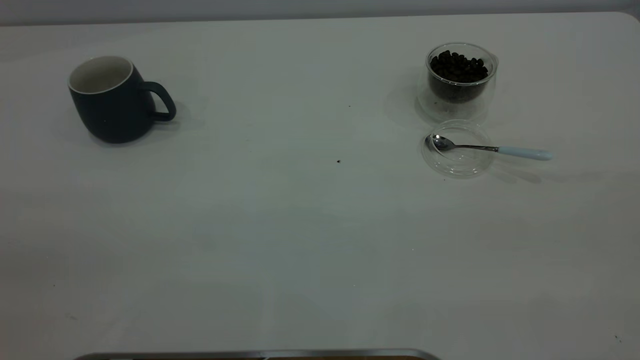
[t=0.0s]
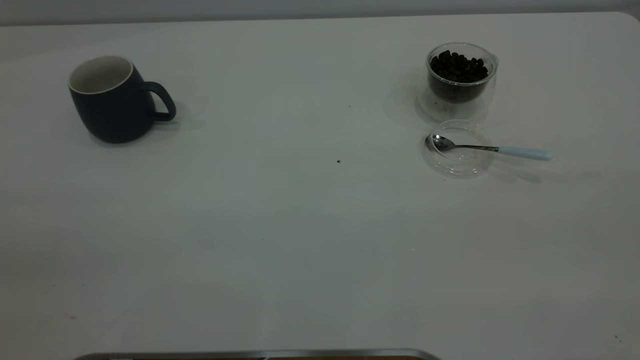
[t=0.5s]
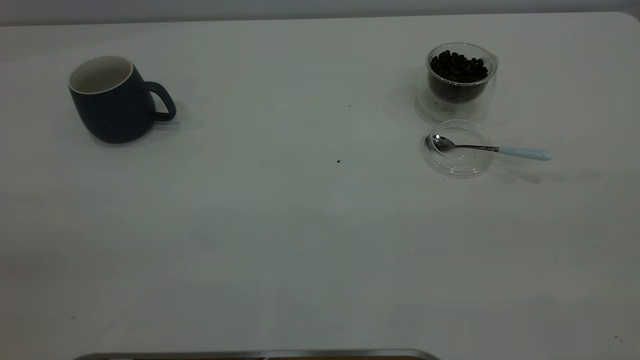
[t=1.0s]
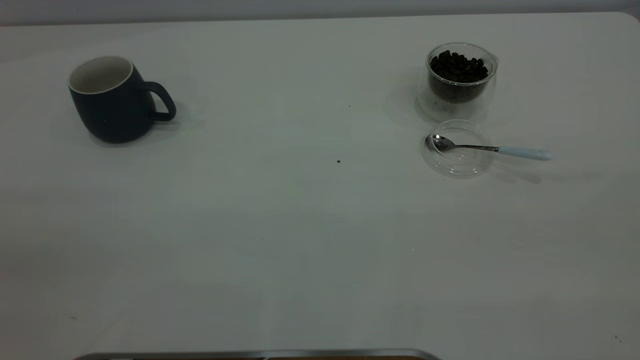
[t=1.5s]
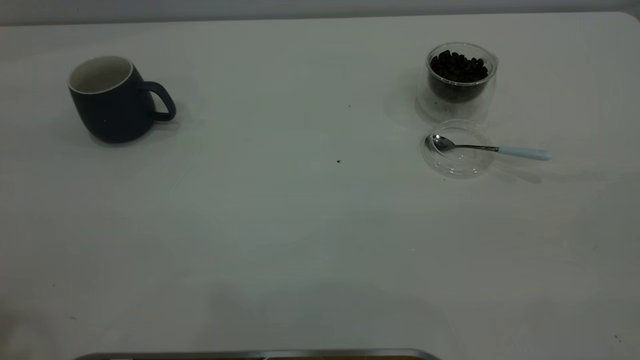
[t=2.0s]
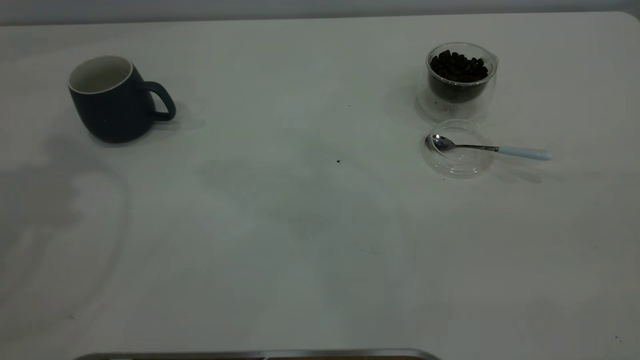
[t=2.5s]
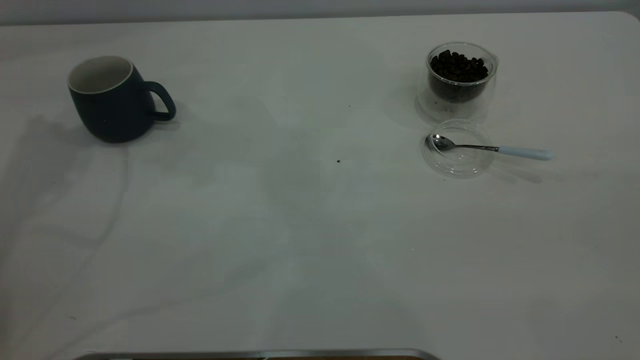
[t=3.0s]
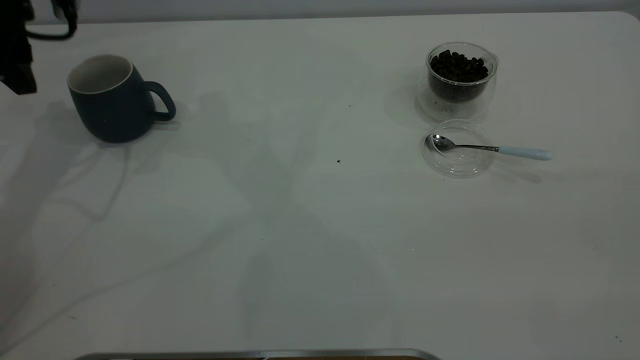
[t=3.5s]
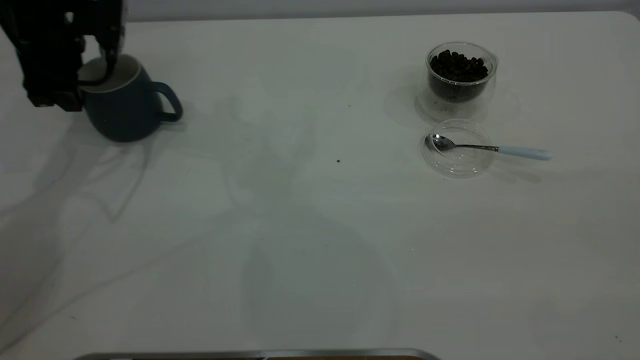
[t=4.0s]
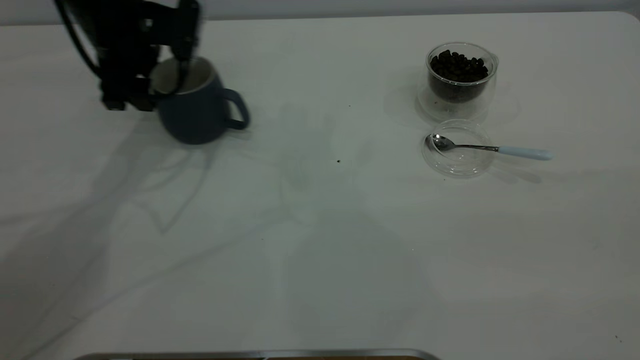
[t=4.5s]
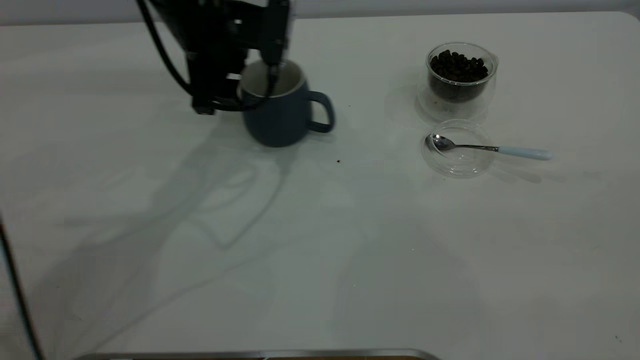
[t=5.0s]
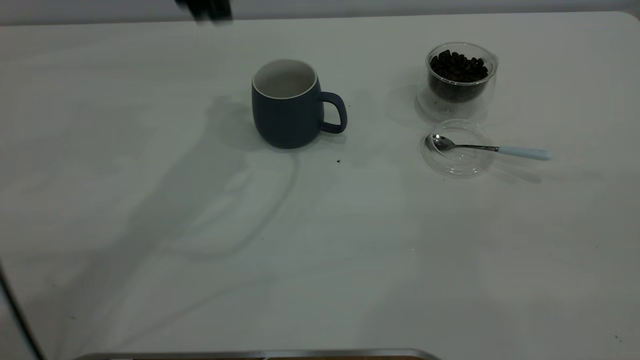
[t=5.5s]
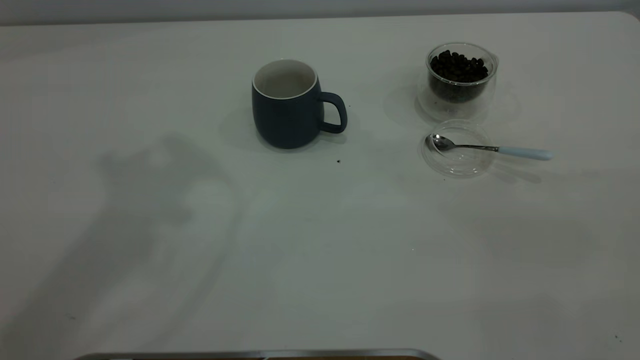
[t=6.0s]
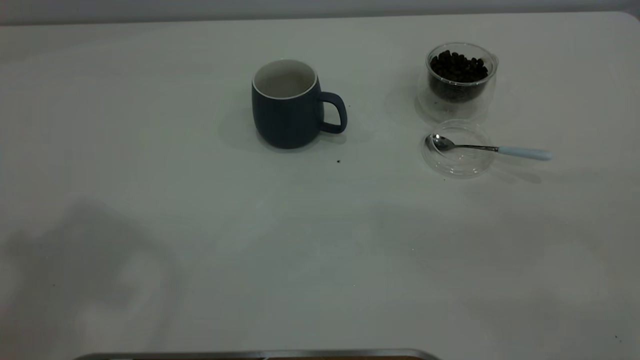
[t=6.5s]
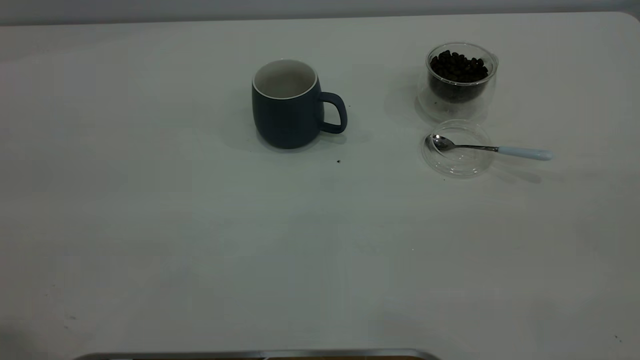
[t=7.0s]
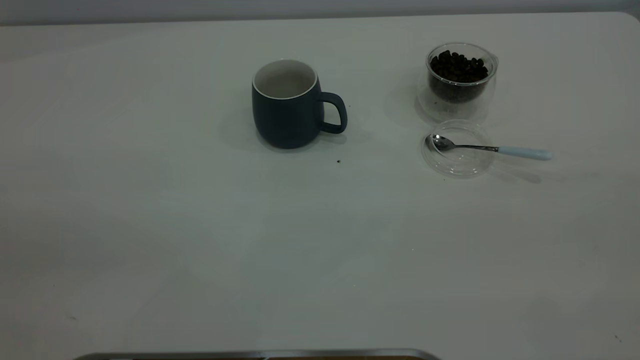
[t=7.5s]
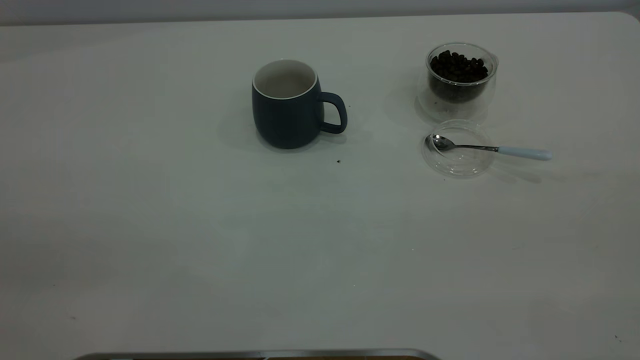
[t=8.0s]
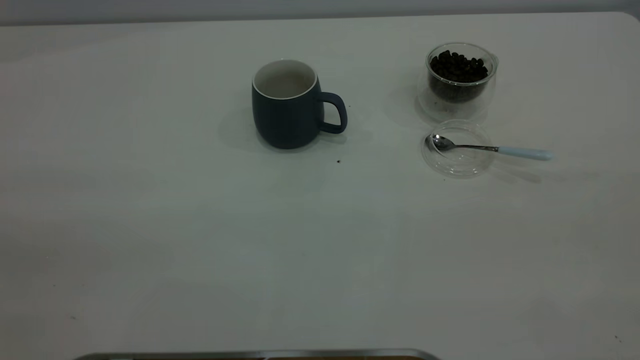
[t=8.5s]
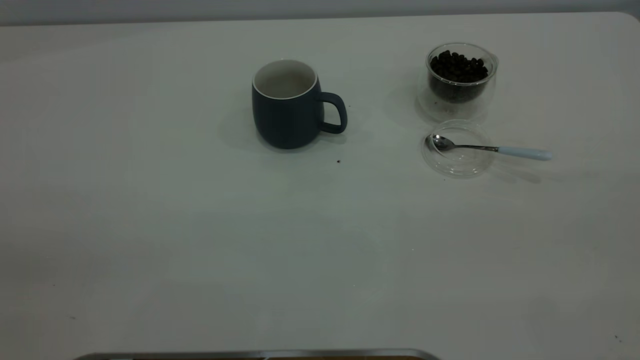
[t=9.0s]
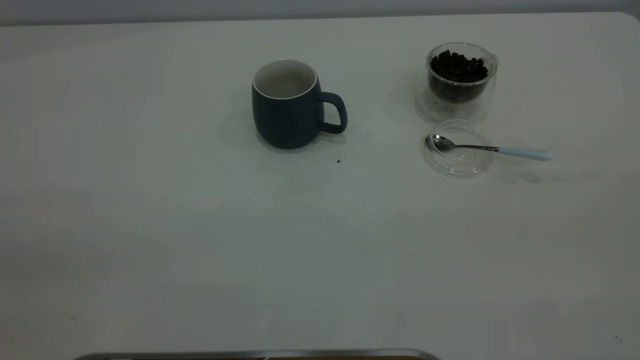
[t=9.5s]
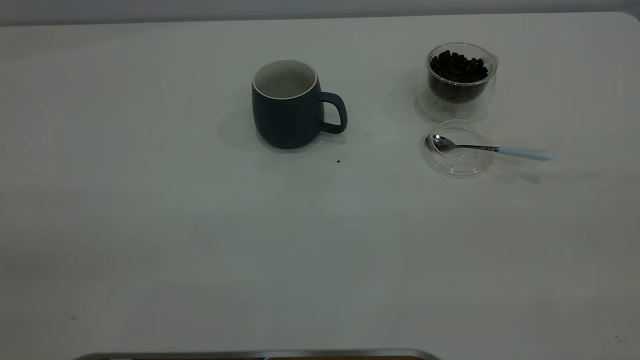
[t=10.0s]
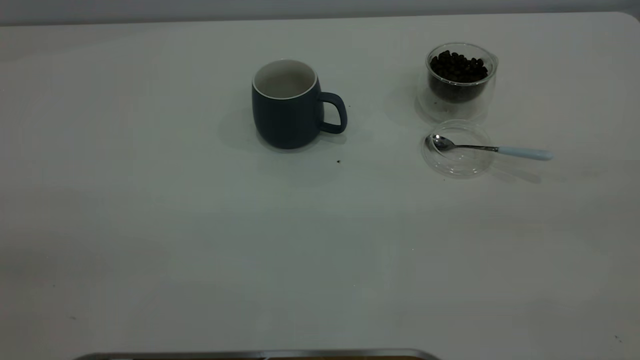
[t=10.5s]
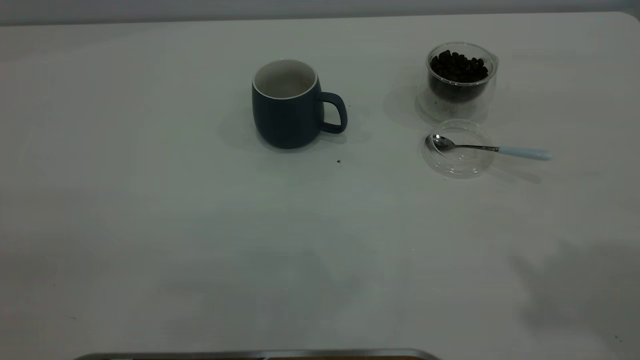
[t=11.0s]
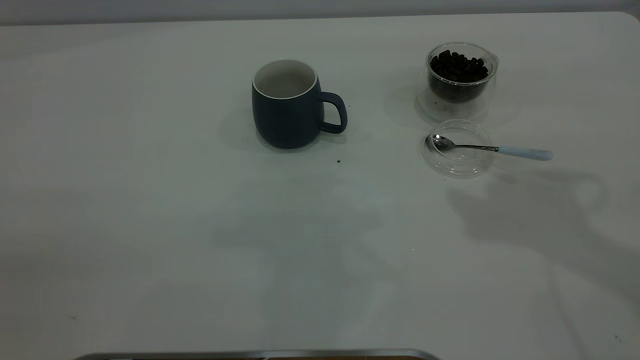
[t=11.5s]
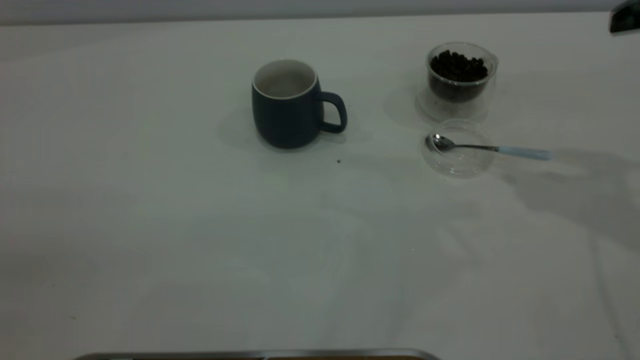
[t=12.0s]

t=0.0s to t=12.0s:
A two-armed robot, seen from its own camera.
Task of the whole recording: the left gripper place the grey cup in the center of the table, the right gripper take the blue spoon from the cup lid and scoop out the coffee beans from the coffee cup and put them into the grey cup, the right gripper put the spoon back into the cup lid.
Step, t=0.0s to t=5.0s: Move the cup to the center of view.
t=2.0s to t=4.0s: The left gripper travels forward and downward by about 40 cm.
t=4.0s to t=6.0s: The left gripper shifts approximately 35 cm upward and backward.

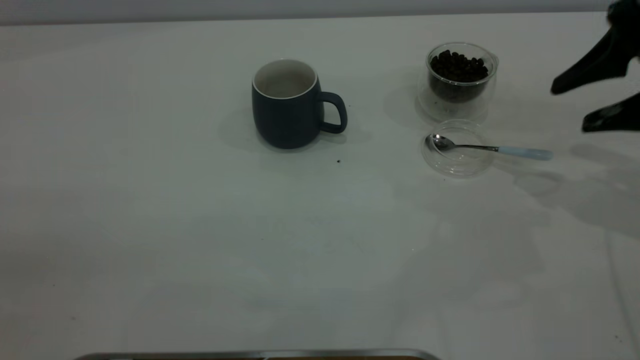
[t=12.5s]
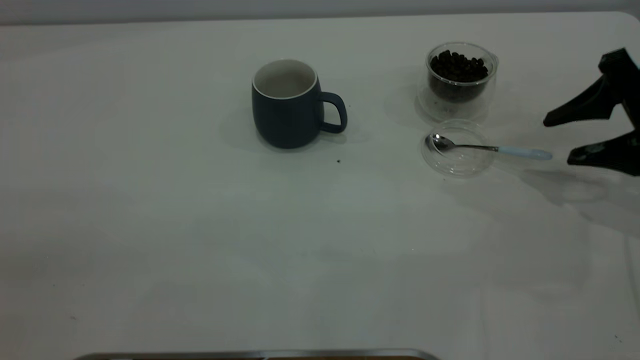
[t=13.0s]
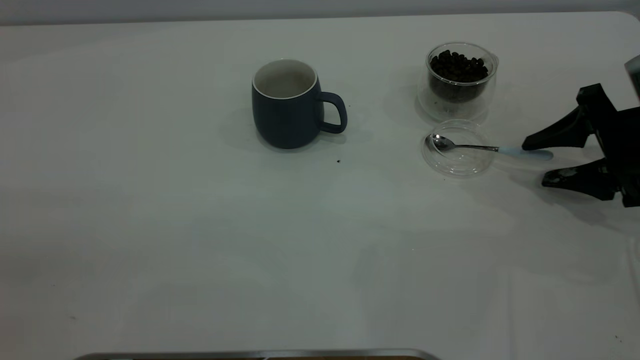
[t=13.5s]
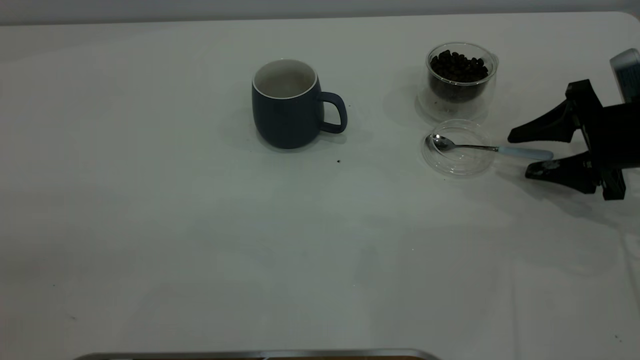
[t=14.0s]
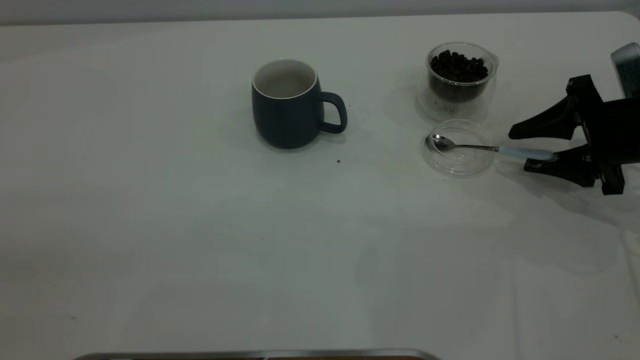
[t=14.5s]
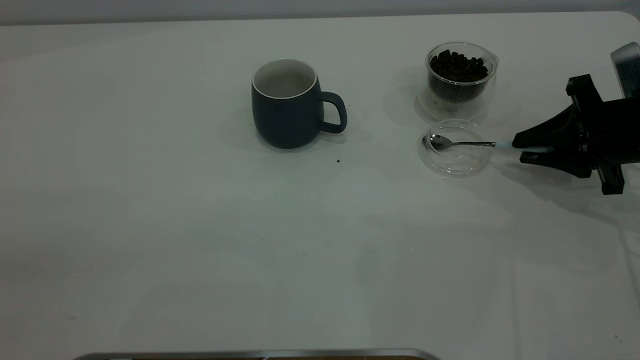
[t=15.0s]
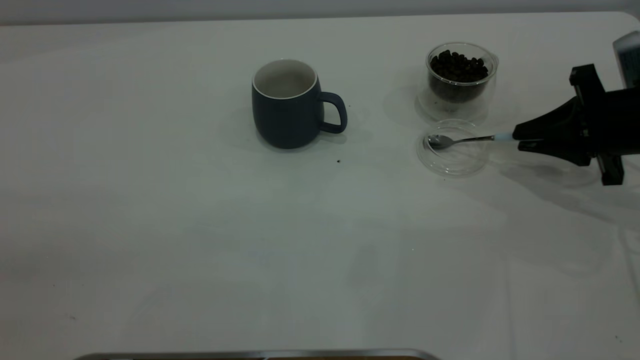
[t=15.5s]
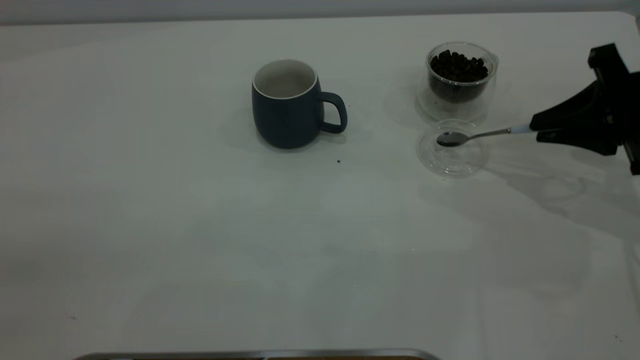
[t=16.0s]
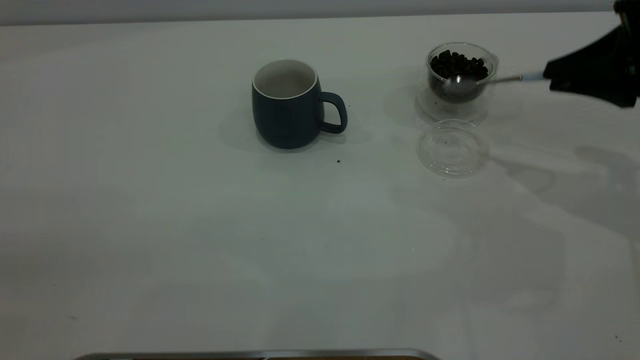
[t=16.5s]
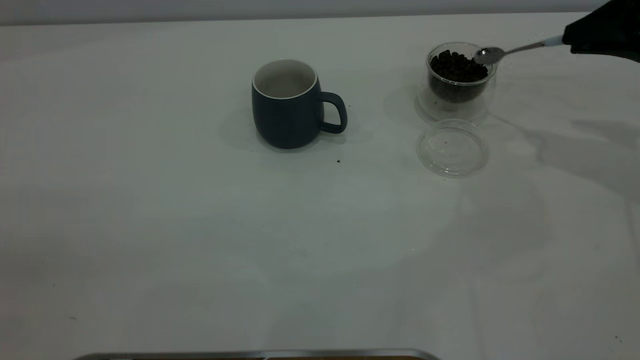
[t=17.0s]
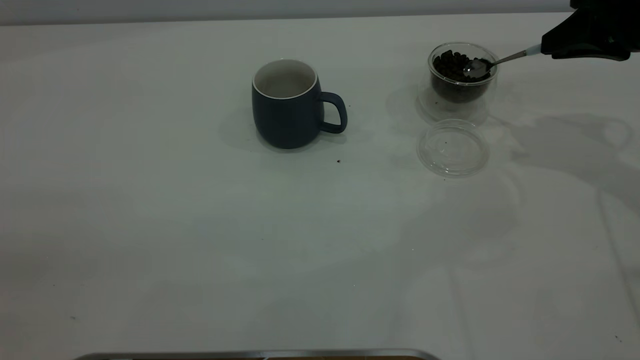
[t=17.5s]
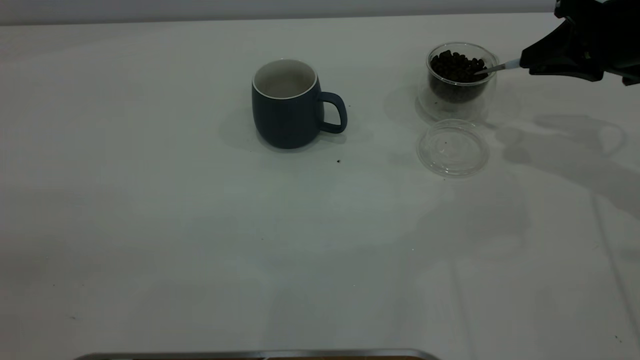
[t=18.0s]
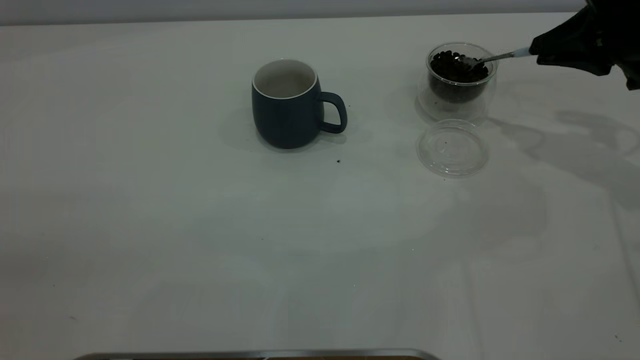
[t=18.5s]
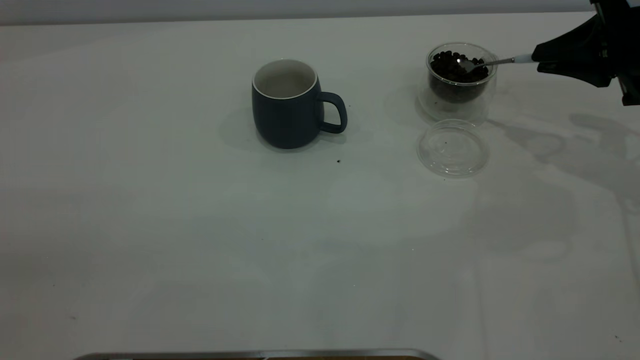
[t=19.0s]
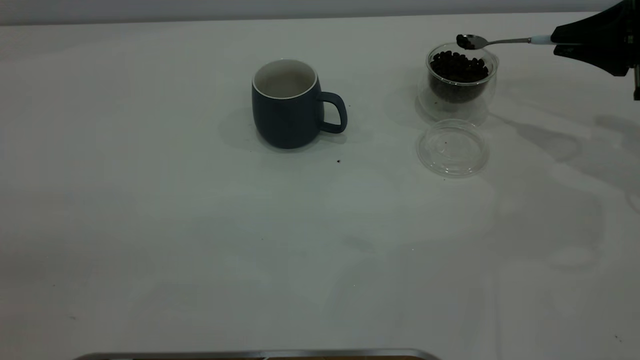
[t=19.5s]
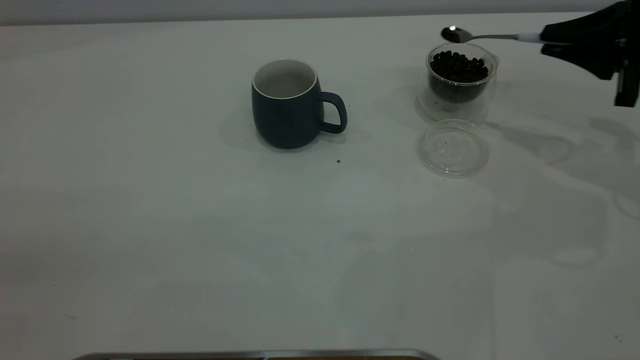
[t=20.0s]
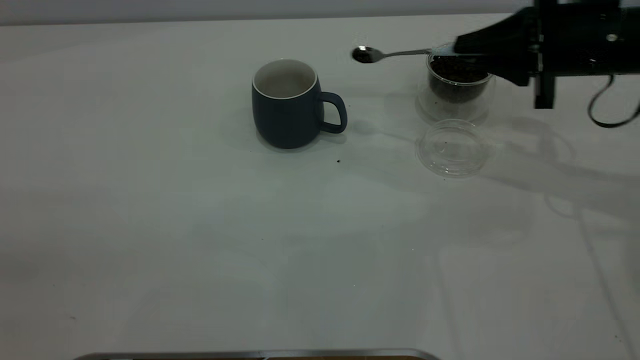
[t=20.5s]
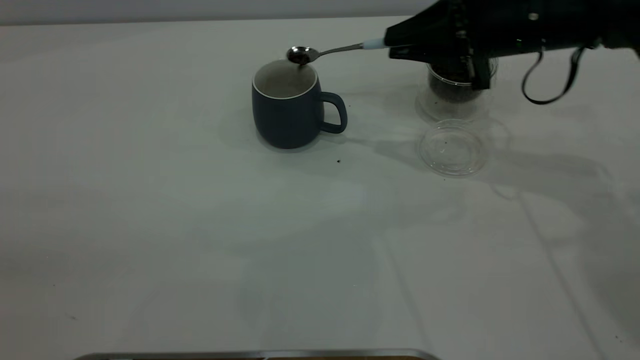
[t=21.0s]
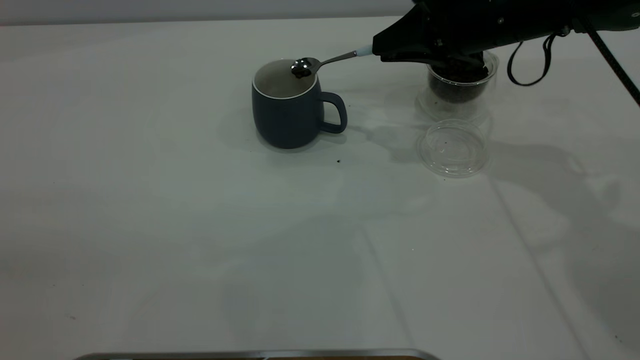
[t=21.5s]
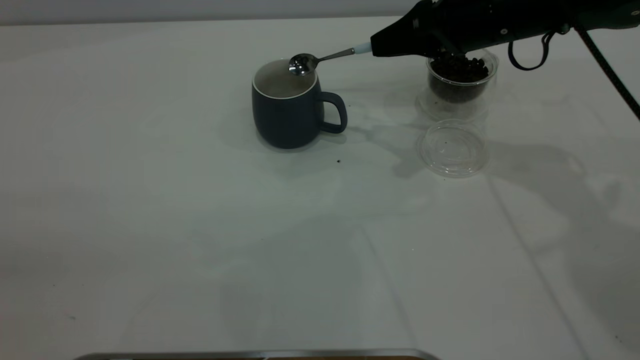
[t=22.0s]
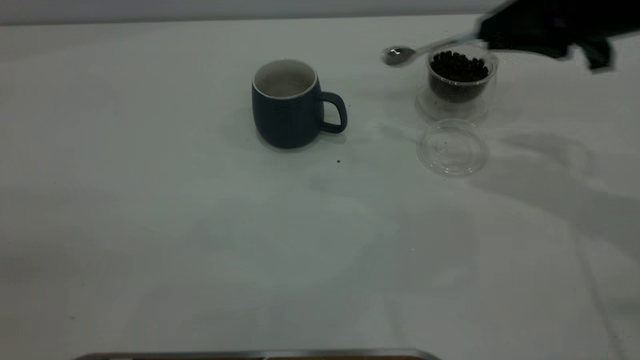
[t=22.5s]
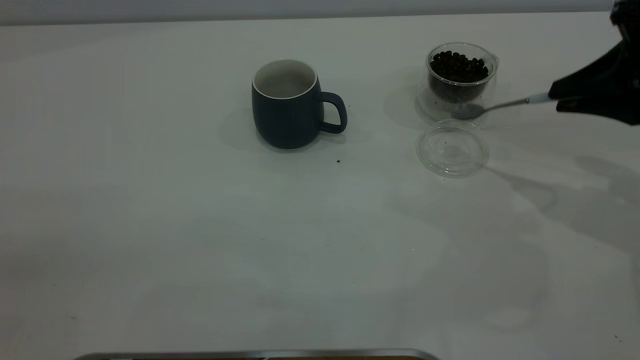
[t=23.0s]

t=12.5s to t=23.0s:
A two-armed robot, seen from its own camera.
Task of the whole recording: the left gripper place the grey cup in the center of the table, the right gripper take the blue spoon from the cup lid and scoop out the coffee beans from the coffee cup and put them into the grey cup, the right gripper put the spoon back into the cup lid.
Step, t=12.5s to t=16.0s: Pick up the spoon.
Step, t=16.5s to t=22.0s: Scoop a spoonful of beans into the cup.
t=12.5s to t=14.5s: The right gripper heads downward, covering some 10 cm.
t=14.5s to t=16.5s: The right gripper goes approximately 10 cm upward, and closes its fingers.
t=16.5s to t=19.0s: The right gripper travels forward by roughly 5 cm.
t=19.0s to t=21.0s: The right gripper heads to the left, covering approximately 15 cm.
t=21.0s to t=23.0s: The right gripper moves to the right and backward, approximately 15 cm.
